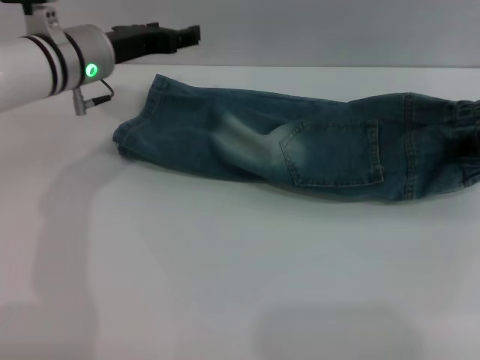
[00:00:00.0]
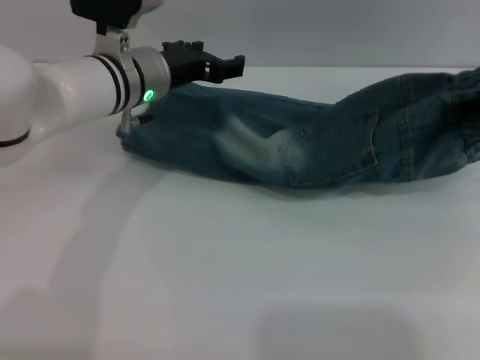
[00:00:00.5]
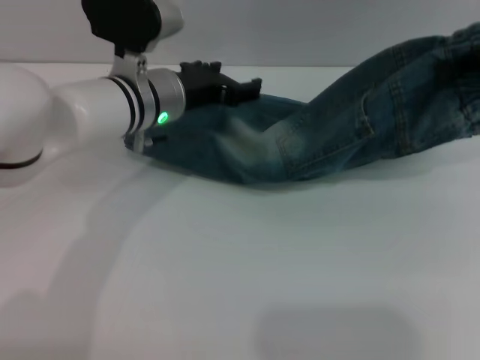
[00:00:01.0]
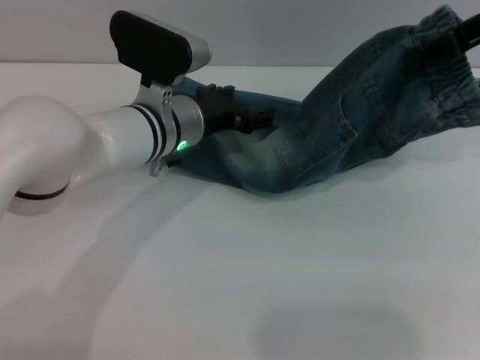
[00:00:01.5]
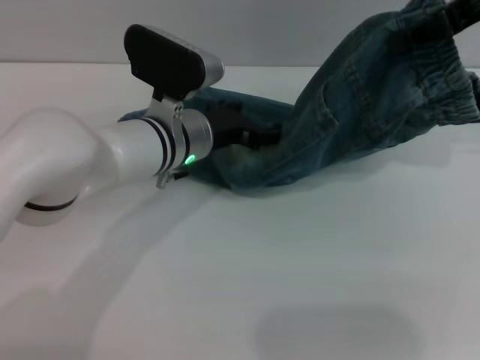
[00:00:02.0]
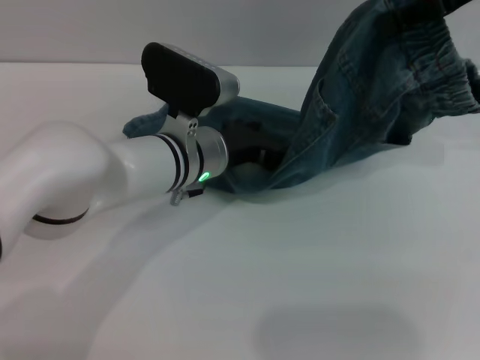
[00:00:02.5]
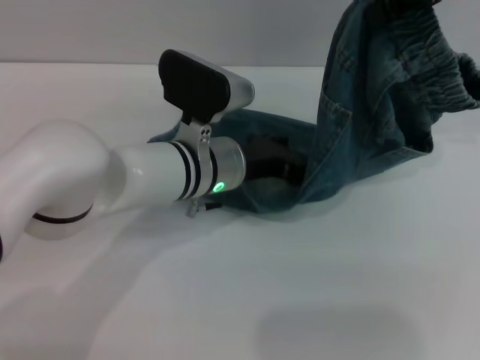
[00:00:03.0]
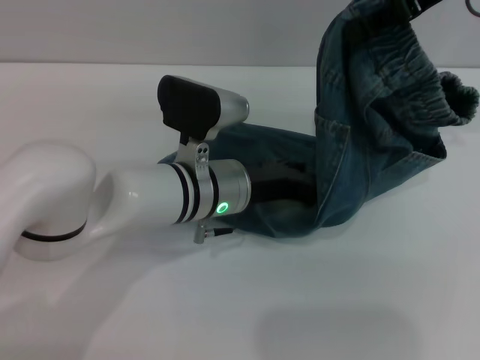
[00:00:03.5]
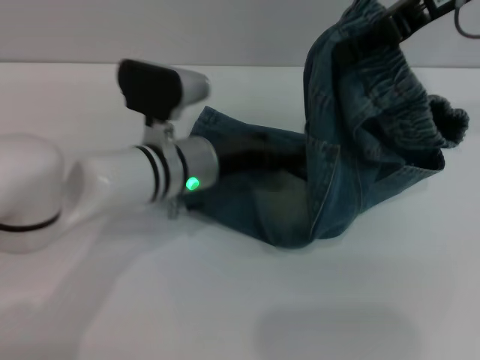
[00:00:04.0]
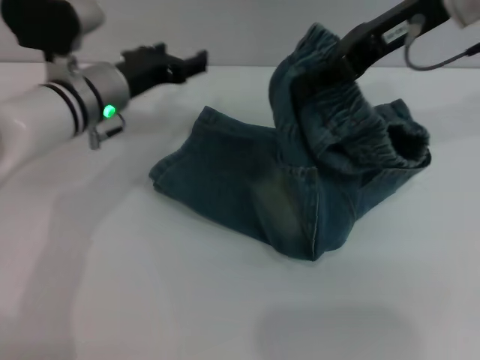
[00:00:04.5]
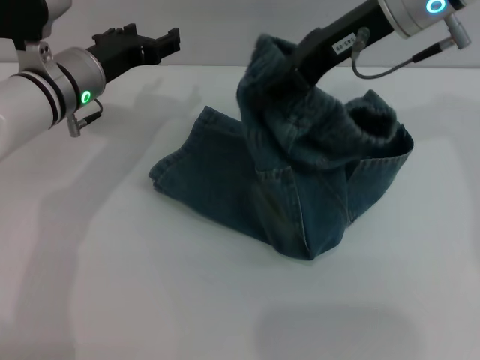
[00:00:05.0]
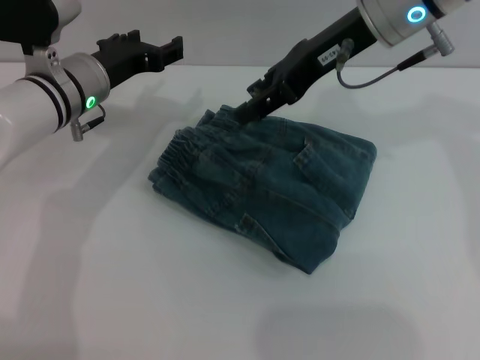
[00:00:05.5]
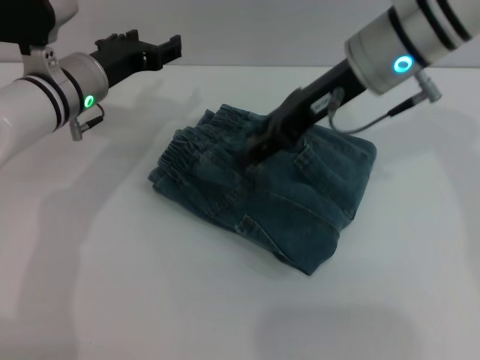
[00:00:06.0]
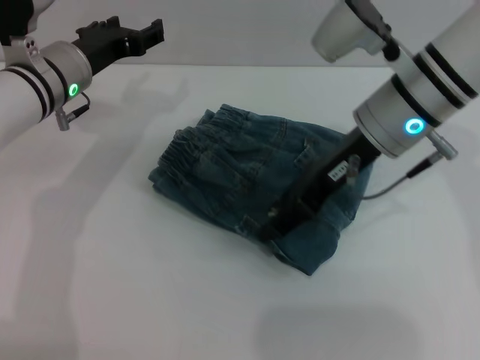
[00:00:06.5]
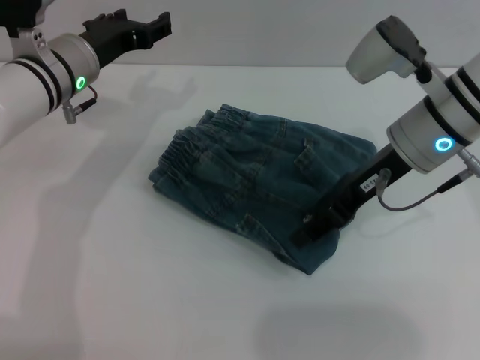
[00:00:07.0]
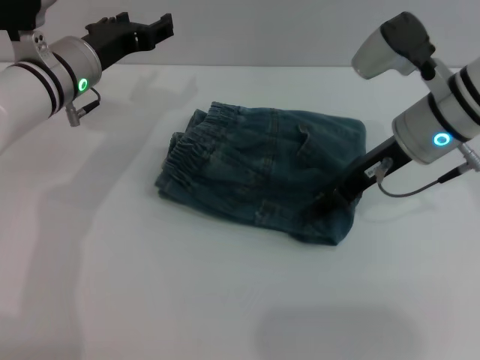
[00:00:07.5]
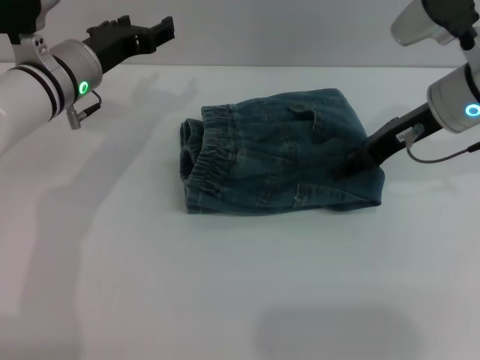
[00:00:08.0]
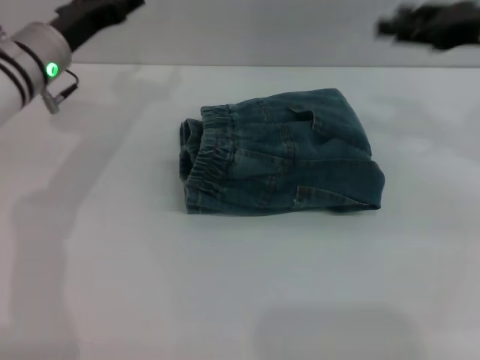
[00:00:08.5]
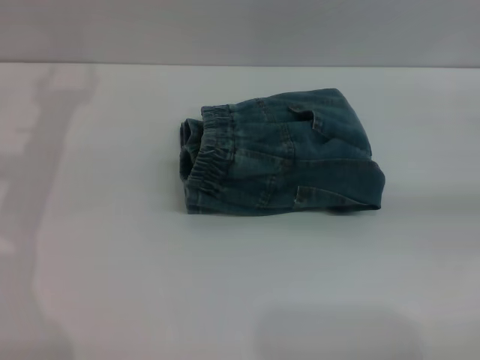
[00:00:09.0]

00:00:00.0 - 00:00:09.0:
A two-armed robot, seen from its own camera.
Step, 00:00:00.0 - 00:00:06.0: Fold the pants from right to left with the right gripper.
Step, 00:00:06.5 - 00:00:08.0: Place the folded trousers onto the center area with the right grippers.
00:00:00.0 - 00:00:02.0: The right gripper moves upward and to the left, about 15 cm; the left gripper shifts some 10 cm to the right, backward and downward.
00:00:02.0 - 00:00:04.5: The two grippers go some 10 cm to the left.
00:00:04.5 - 00:00:07.0: The right gripper heads downward, covering some 10 cm, and opens its fingers.
00:00:07.0 - 00:00:09.0: The right gripper shifts about 25 cm to the right; the left gripper travels to the left by about 10 cm.
